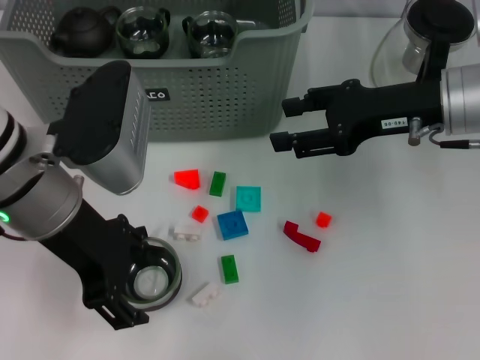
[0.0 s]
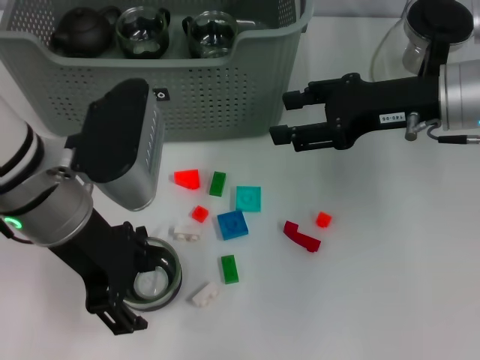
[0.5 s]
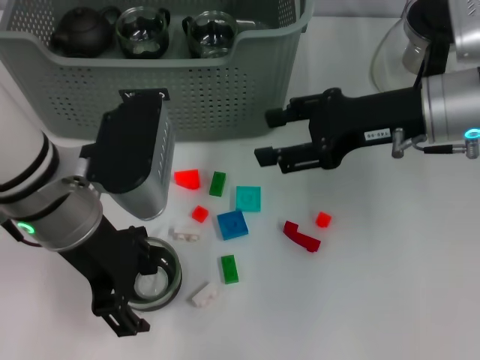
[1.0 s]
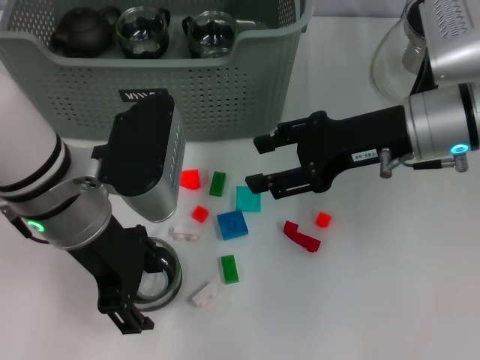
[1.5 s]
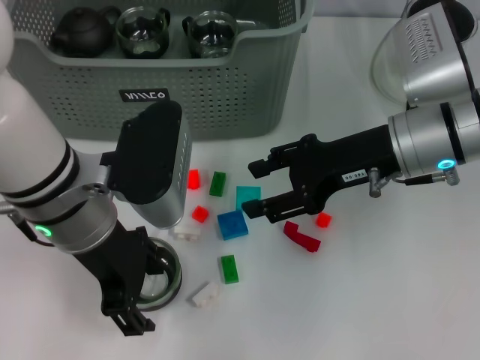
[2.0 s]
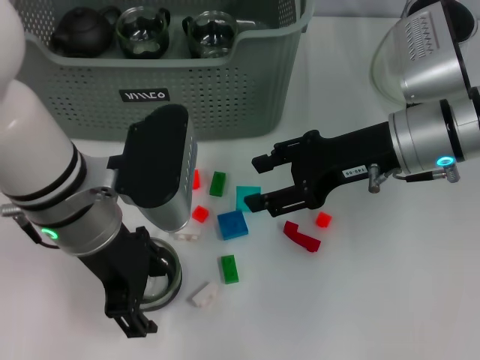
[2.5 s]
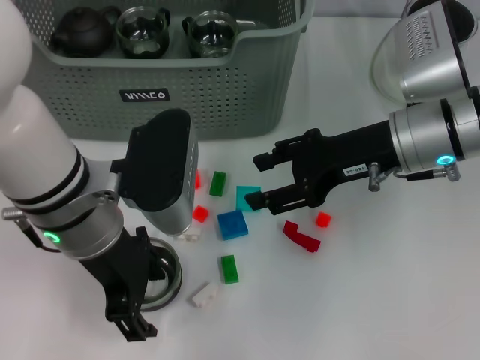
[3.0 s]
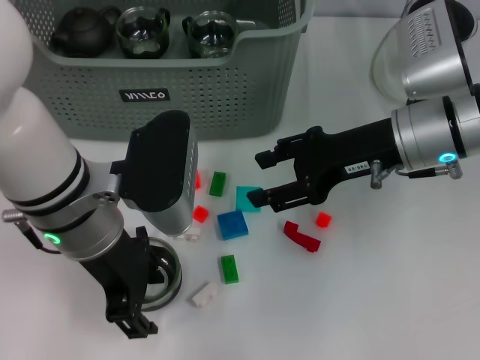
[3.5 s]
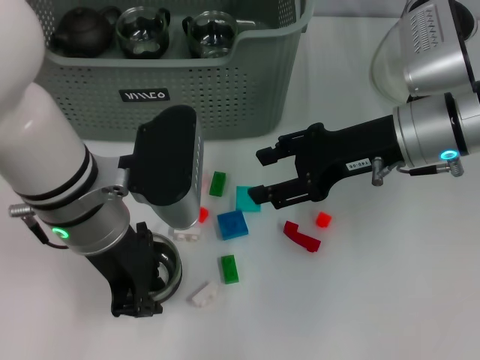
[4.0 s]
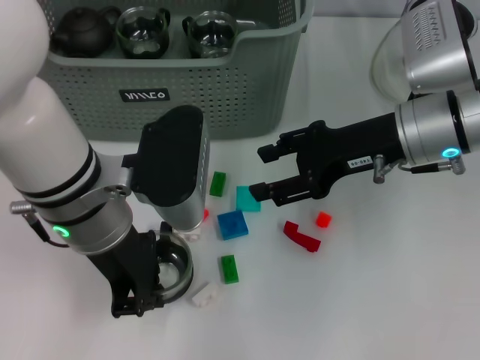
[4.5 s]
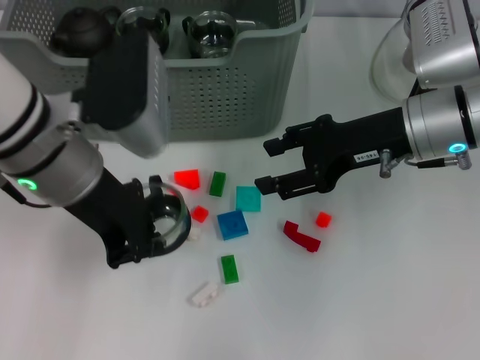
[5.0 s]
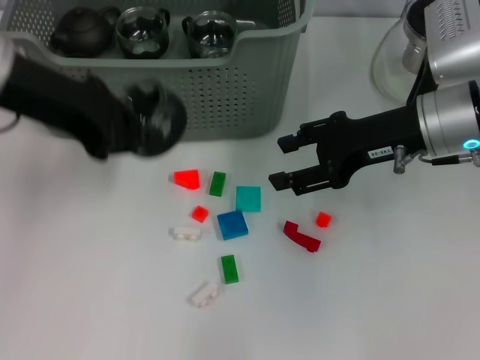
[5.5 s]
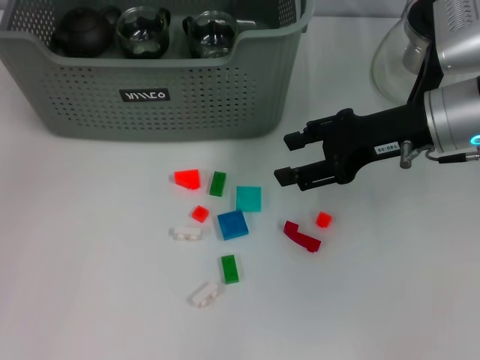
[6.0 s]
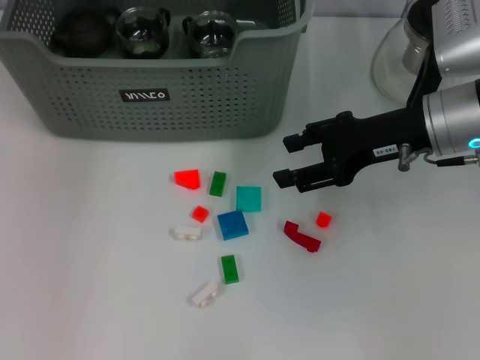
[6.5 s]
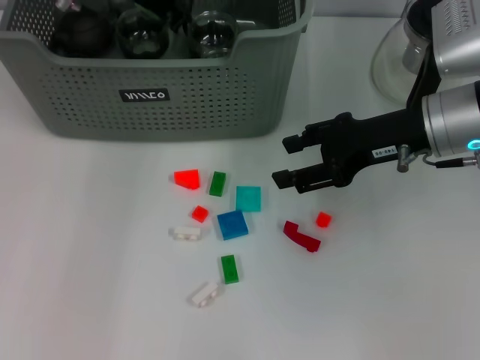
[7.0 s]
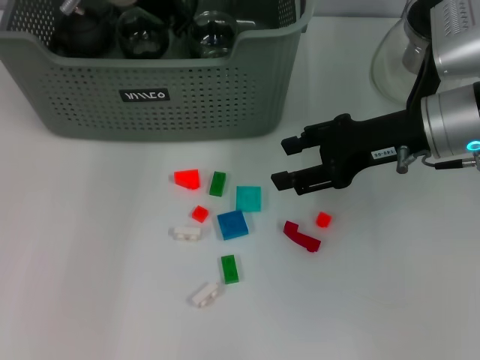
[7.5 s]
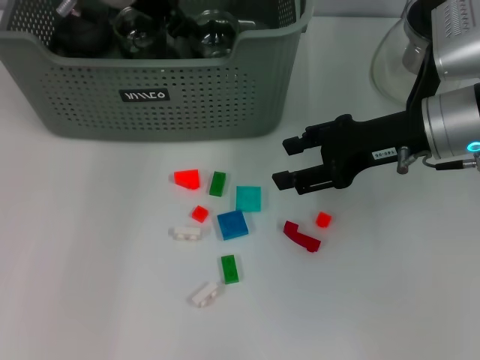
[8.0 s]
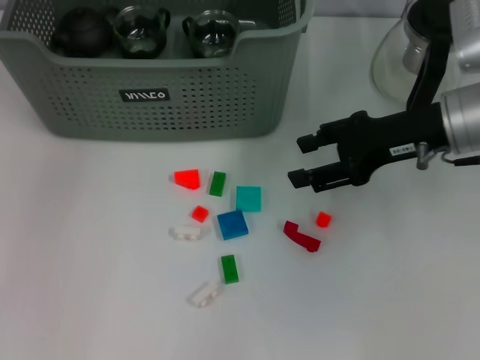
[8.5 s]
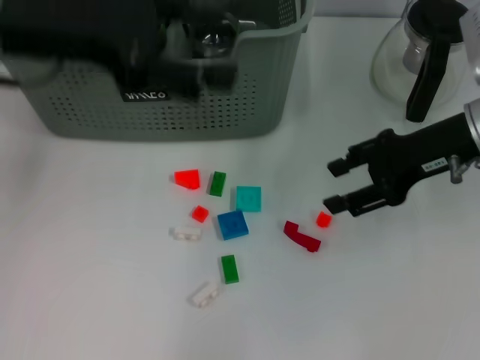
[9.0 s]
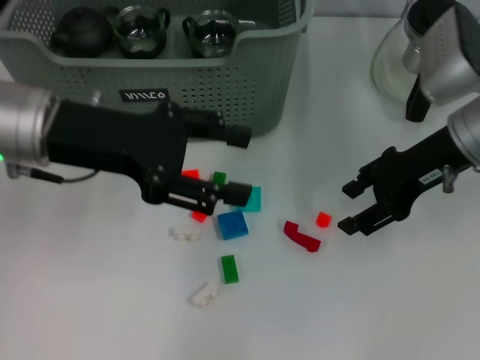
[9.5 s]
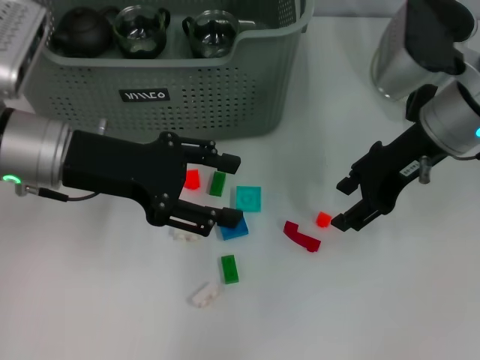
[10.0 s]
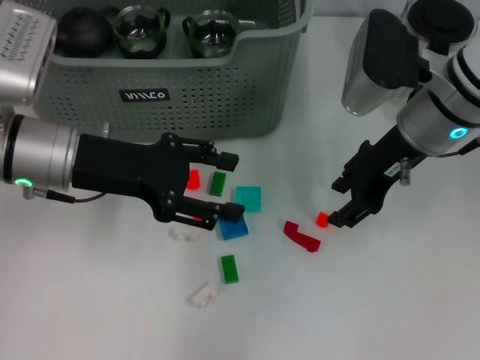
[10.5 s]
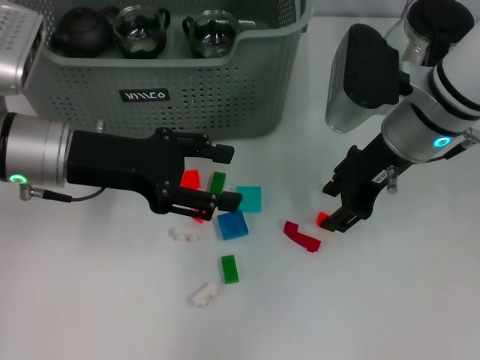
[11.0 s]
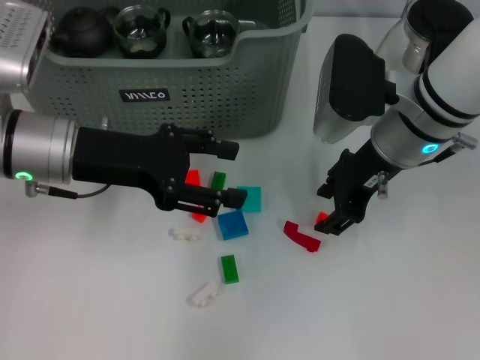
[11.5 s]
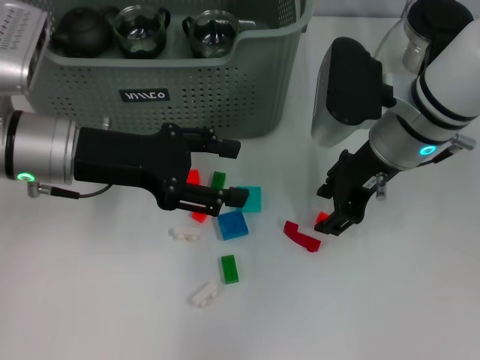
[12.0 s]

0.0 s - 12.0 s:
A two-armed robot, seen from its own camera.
Task of the whole recording: pick up the teacup on the table and place it into the storage bin, pick up the block on the table and place it into the storage bin.
Step, 0.0 s - 4.0 s: Grasp the cup with left gripper.
Step, 4.5 s - 8.0 s: Place the cup in the storage box with left gripper.
2.0 s - 4.0 s: Both grippers stay put.
4.0 s - 6.0 s: The left gripper is displaced upward, to the left and forward by roughly 25 cm, and closes up.
6.0 s - 8.0 s: The left gripper travels to the right, downward and forward by roughly 15 cm.
8.0 s - 10.0 s: The left gripper travels backward and to the left by roughly 15 cm, and opens up.
10.0 s - 12.0 s: The right gripper moves about 5 cm.

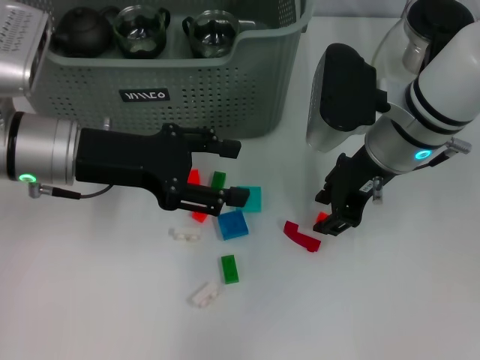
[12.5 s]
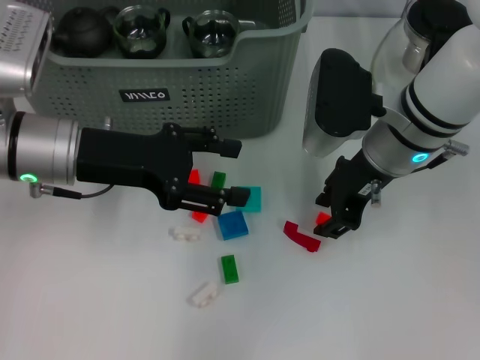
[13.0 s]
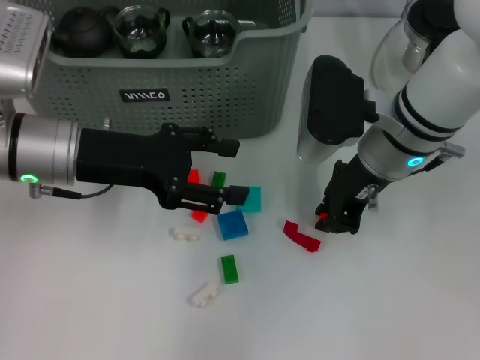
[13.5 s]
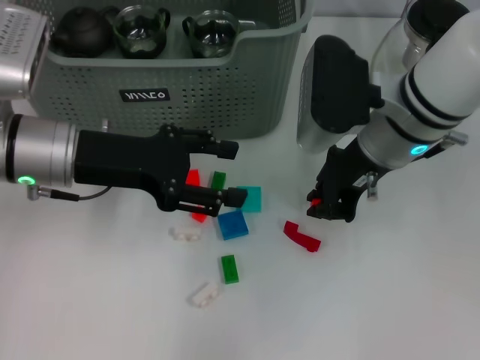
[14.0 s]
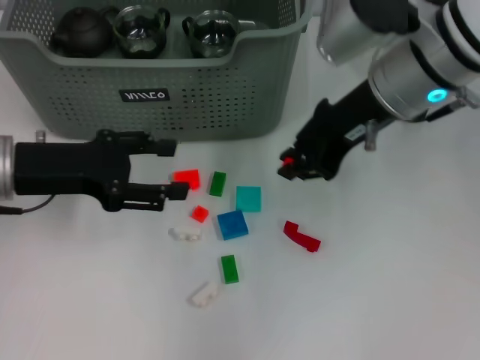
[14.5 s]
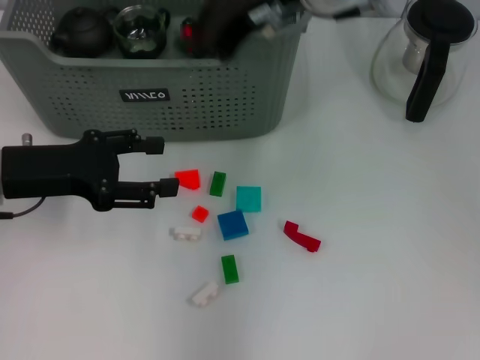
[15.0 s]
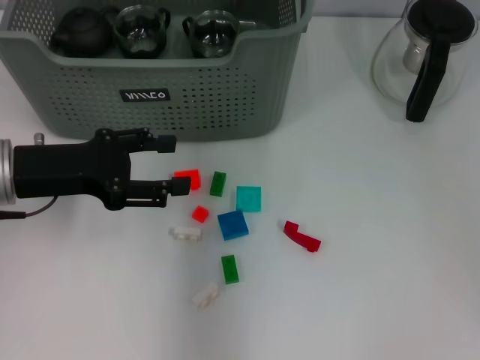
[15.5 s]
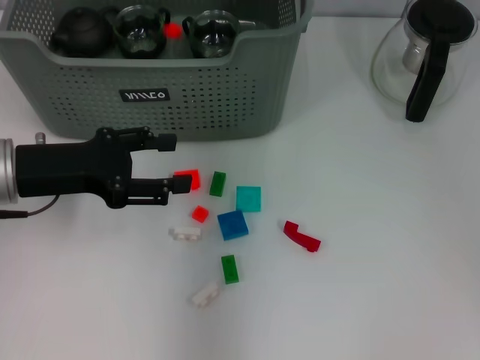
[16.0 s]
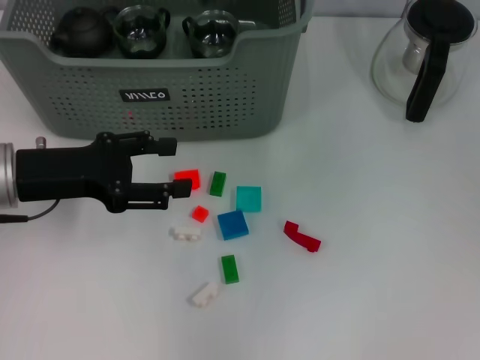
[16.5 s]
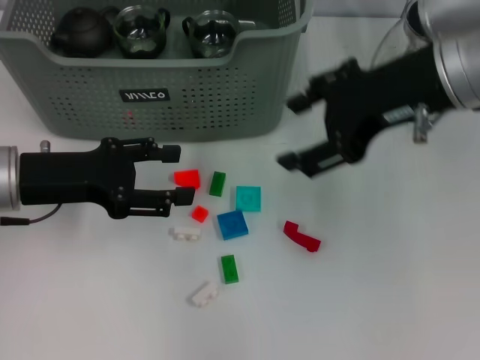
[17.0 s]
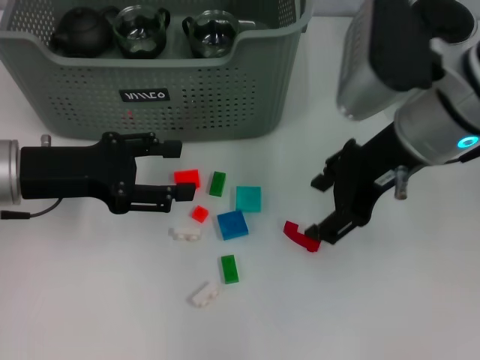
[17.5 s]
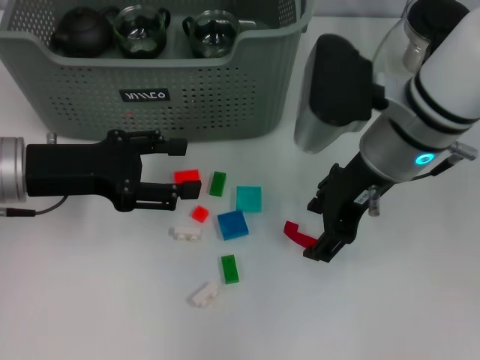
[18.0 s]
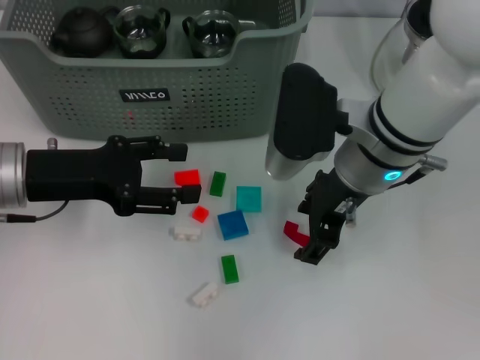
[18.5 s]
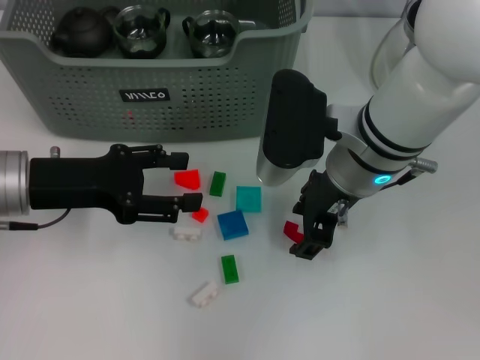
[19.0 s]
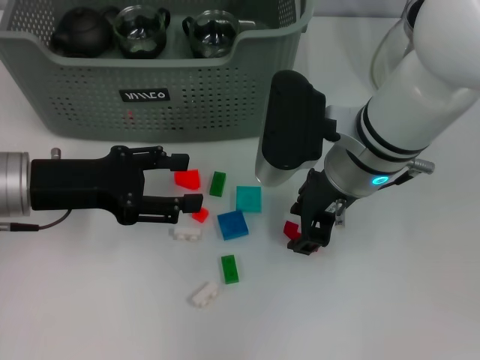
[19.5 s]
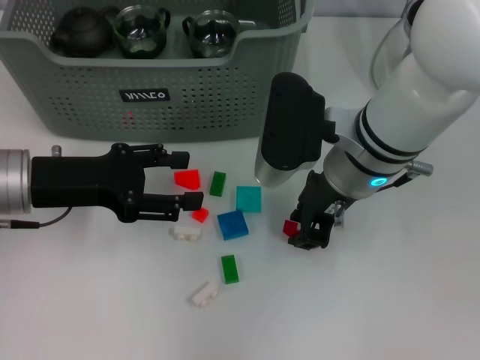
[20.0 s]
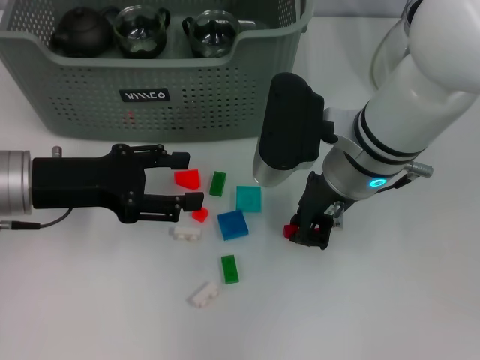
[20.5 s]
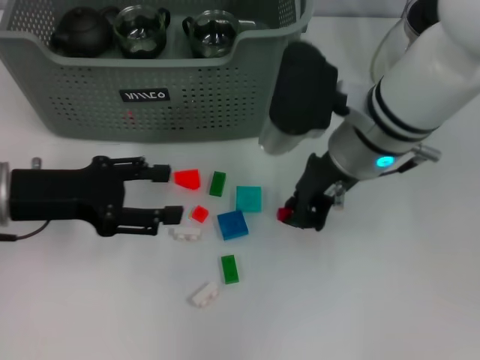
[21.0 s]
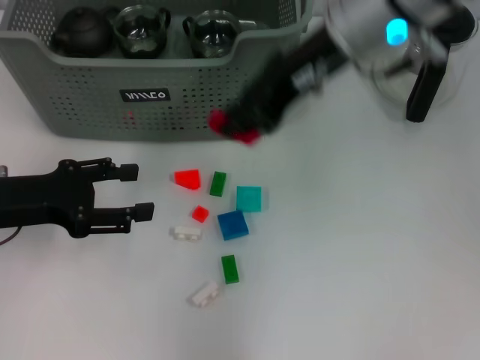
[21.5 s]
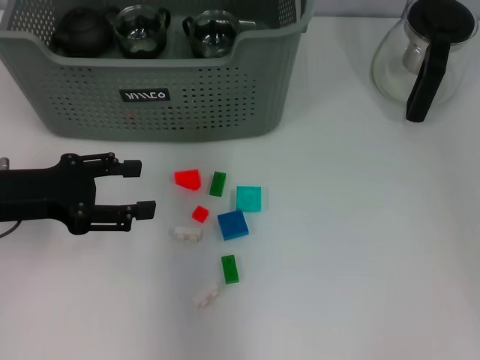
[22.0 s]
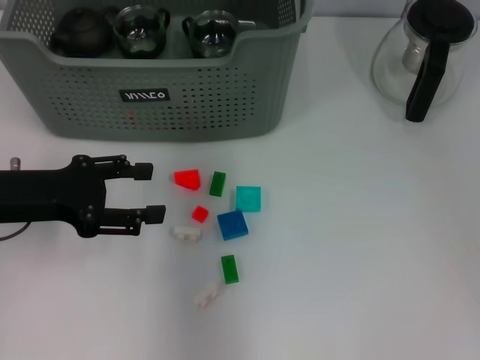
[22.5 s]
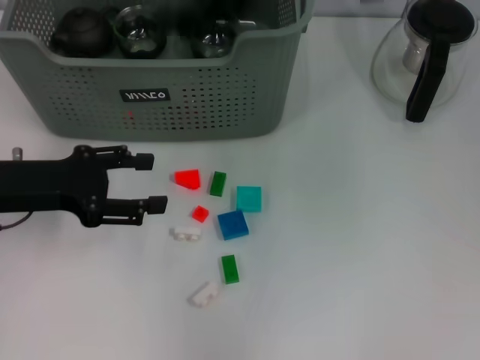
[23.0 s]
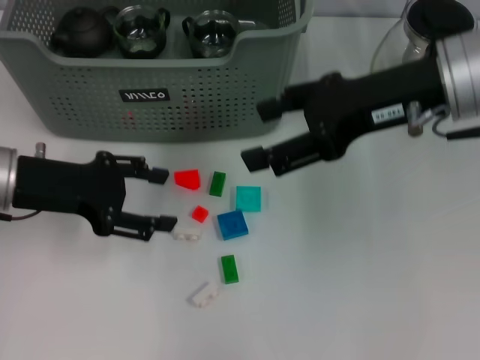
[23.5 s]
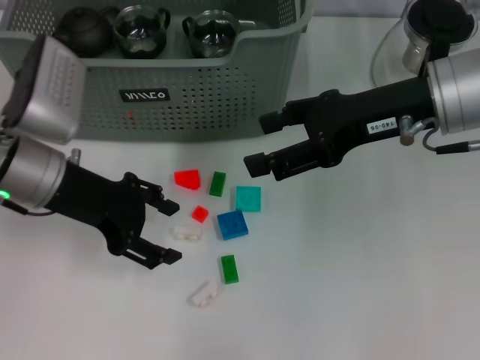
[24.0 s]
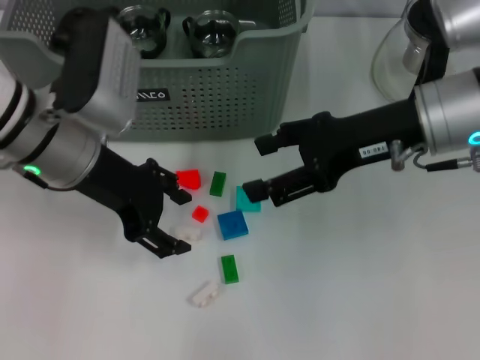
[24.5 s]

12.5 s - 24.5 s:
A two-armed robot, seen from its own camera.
Task of the whole recording: pick up the teacup on the table and place it into the storage bin, pick up the block on the table and place it into the storage bin.
Step, 14.0 s - 16.0 s: Place the orange block in the storage box with right gripper.
Step, 16.5 s - 20.5 s: Grasp the red block with right gripper.
Step, 21.0 s - 22.5 s: Place the red block in the storage box with right gripper.
12.5 s - 14.5 s: The left gripper travels to the left by about 5 cm. The right gripper heads upward, covering about 5 cm, and closes its fingers.
14.5 s - 16.5 s: The right gripper goes about 5 cm upward, and opens up.
16.5 s - 18.5 s: The right gripper goes about 15 cm downward and backward.
18.5 s - 20.5 s: The right gripper closes.
20.5 s - 22.5 s: The right gripper shifts about 20 cm upward and forward.
22.5 s - 24.5 s: The right gripper shifts approximately 20 cm to the right, downward and backward, and opens up; the left gripper is displaced to the right and forward by about 10 cm.

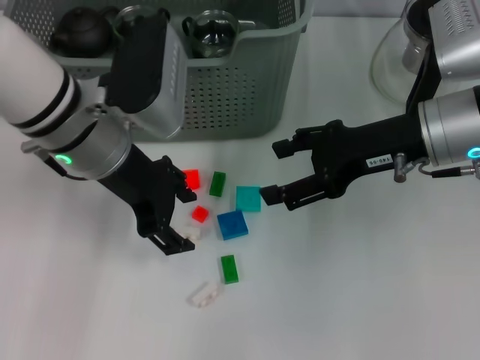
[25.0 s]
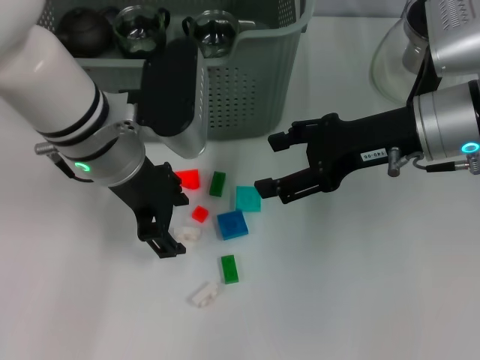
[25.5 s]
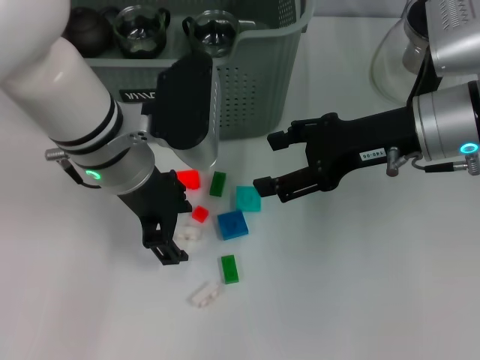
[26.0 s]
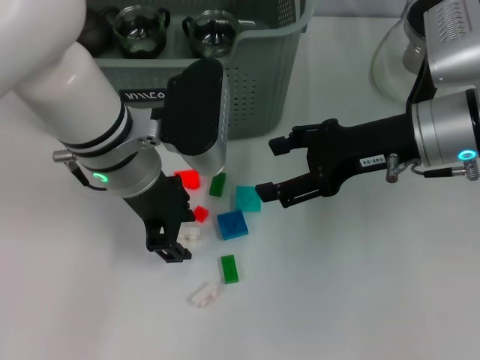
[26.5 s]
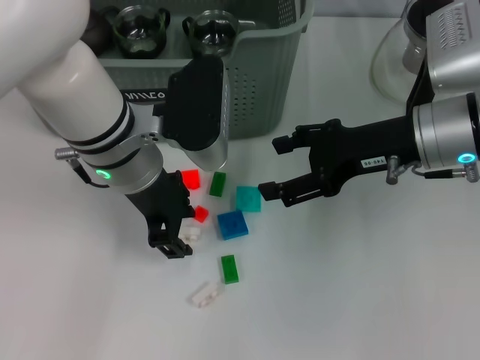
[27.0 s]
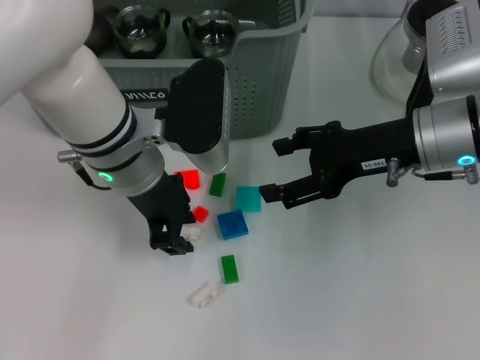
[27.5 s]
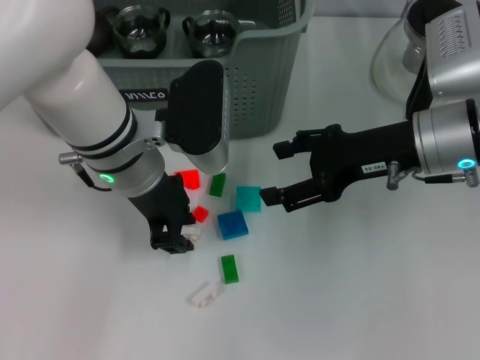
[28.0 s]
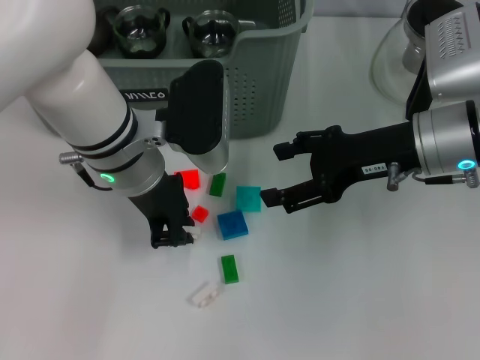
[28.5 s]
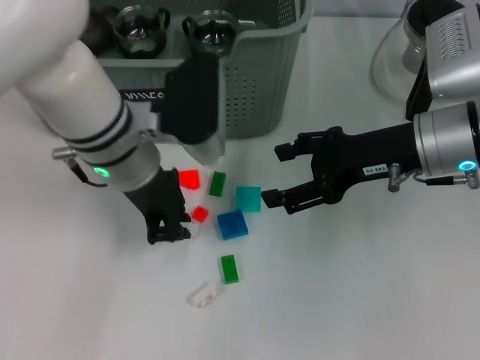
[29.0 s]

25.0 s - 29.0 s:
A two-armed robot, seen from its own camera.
Task of the whole recording: pick up the teacup on the table and place it into the storage bin, pick up the block on the table and place it into the storage bin.
Step, 25.0 s - 28.5 s: Grasp the white block with left gripper.
27.0 s - 29.0 s: The left gripper closes its fingers.
